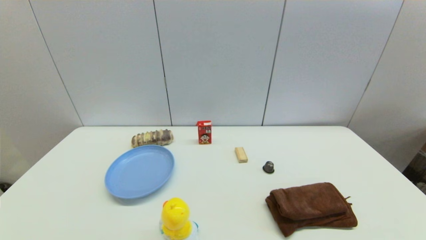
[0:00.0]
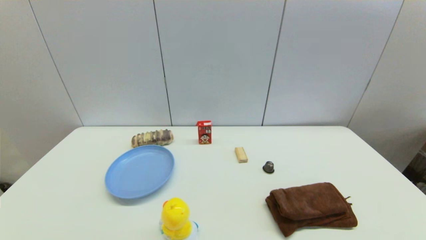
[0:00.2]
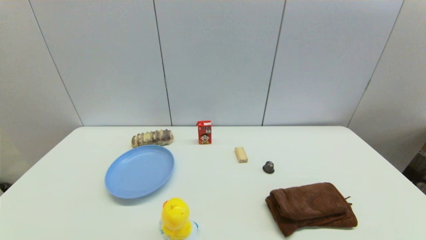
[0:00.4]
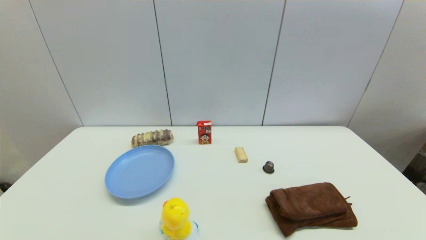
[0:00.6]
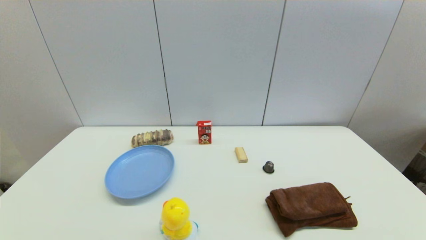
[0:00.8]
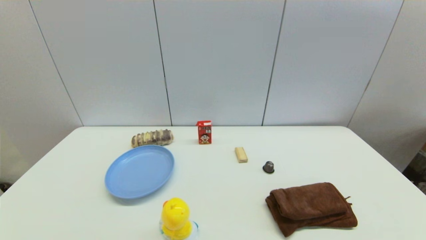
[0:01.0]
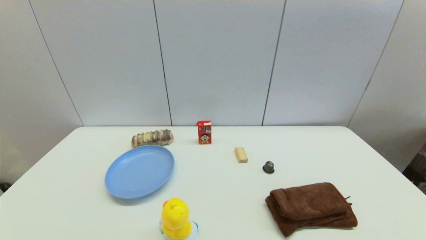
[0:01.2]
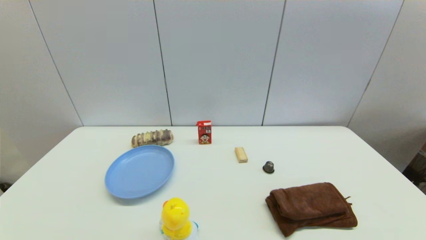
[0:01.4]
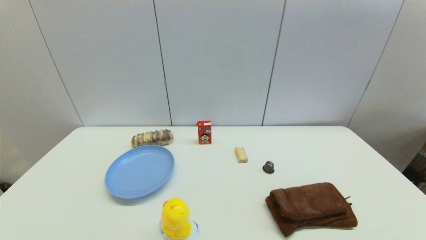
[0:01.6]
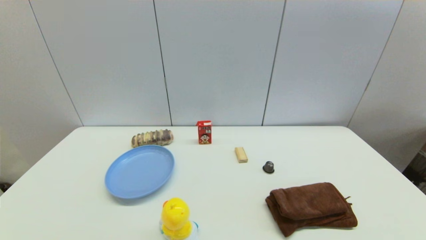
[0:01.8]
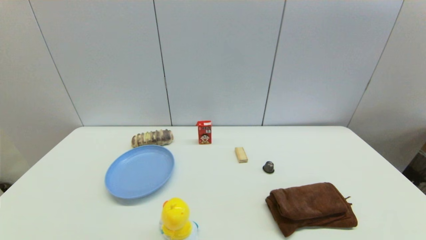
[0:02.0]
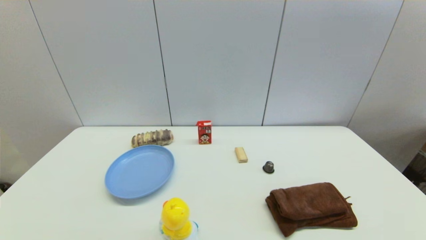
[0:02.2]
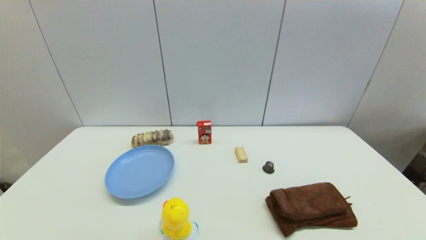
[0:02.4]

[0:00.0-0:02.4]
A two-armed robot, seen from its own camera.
0:00.0 to 0:02.4: Both grippers stay put.
